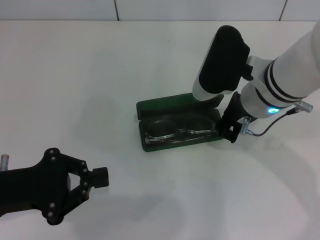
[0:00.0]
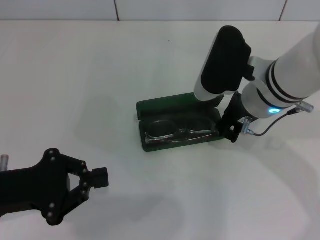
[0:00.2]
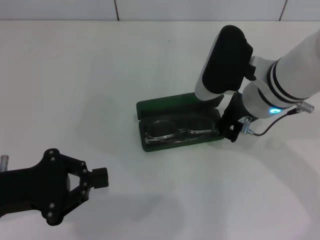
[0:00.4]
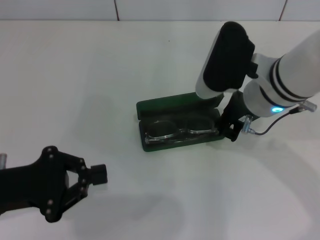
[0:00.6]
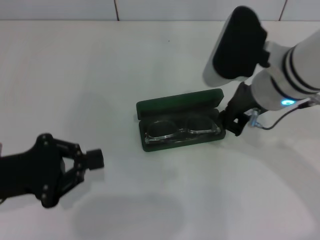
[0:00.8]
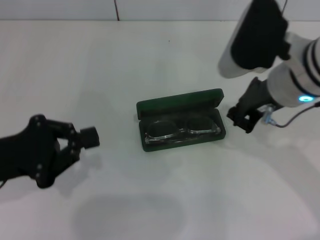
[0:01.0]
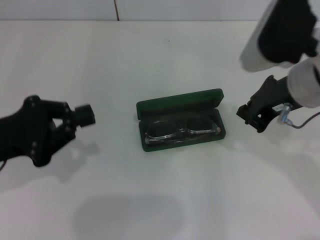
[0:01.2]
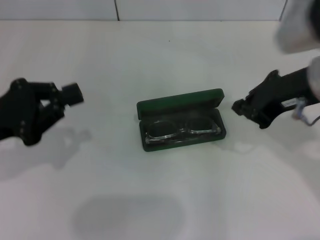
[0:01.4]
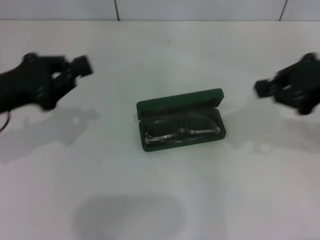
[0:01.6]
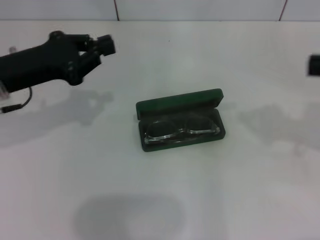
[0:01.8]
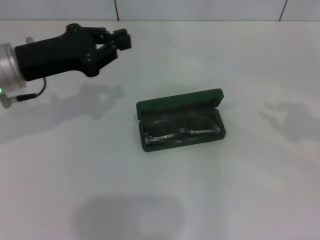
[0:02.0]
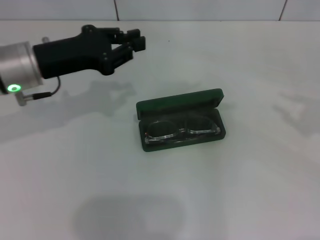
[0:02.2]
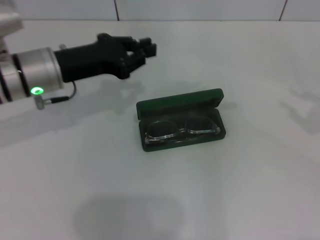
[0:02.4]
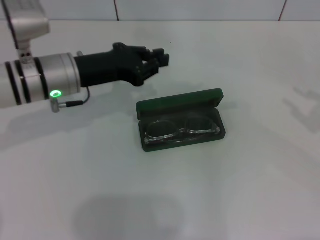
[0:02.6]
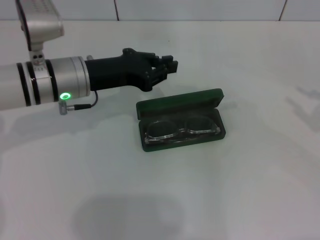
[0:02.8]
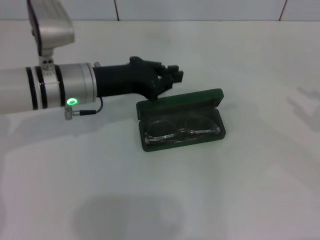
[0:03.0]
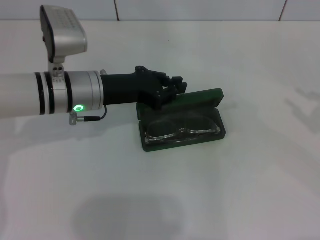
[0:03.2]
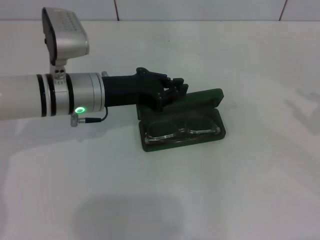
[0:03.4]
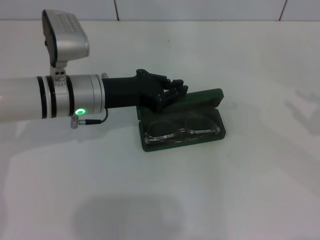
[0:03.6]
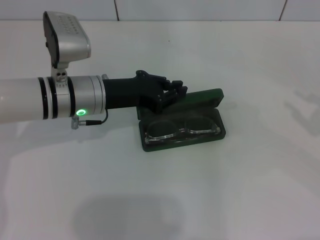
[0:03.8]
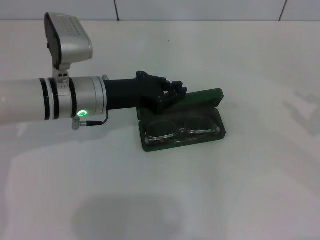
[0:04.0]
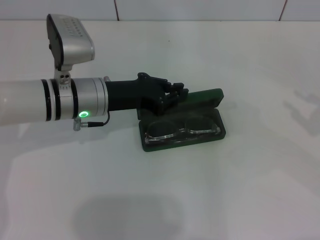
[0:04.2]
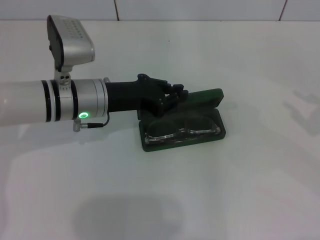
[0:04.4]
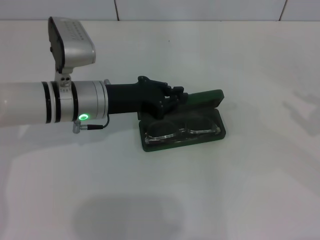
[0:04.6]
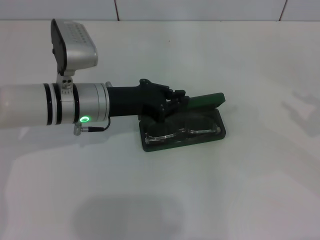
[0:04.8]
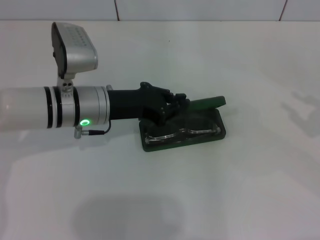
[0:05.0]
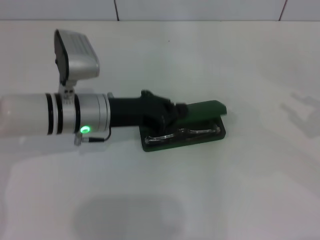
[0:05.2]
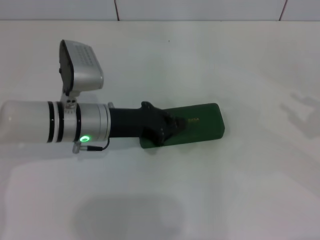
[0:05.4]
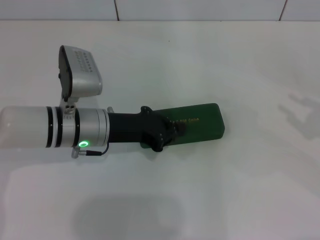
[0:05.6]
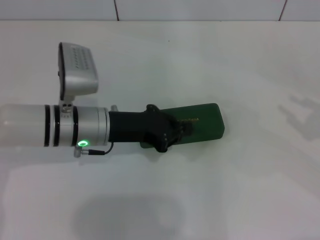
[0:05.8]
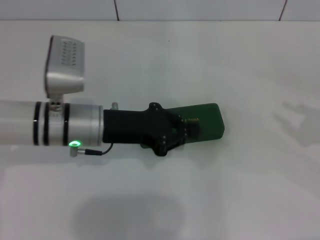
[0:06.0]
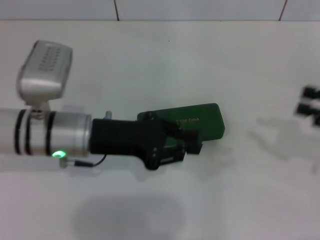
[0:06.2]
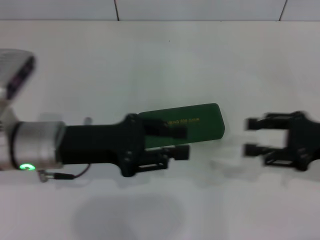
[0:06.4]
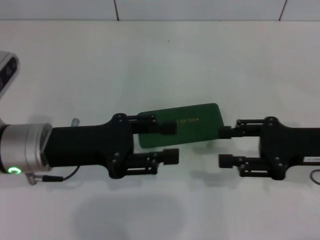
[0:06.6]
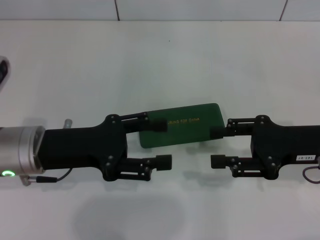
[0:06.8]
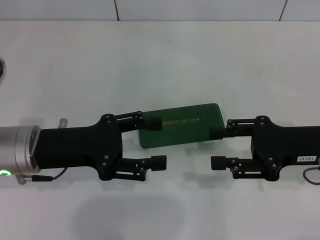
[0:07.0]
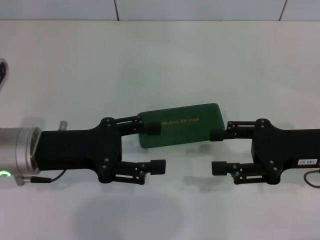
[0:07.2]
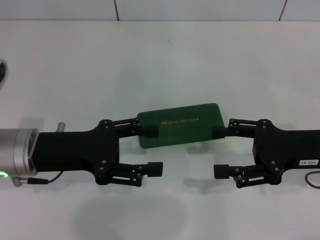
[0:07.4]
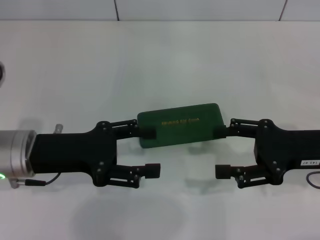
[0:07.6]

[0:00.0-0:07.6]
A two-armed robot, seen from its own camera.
Step, 0.6 to 5.4 s: Close the glasses case with your left hand.
0.0 to 1.6 s: The left gripper travels forward by about 10 cm, while the right gripper shifts about 20 cm to the right, upward and backward.
1.6 to 3.0 s: The right gripper goes some 15 cm to the right and downward, and opens. The left gripper travels to the right and forward by about 15 cm.
3.0 to 6.0 s: The grippers move only a little.
6.0 to 7.6 s: The right gripper travels to the left by about 15 cm, and opens. Meanwhile the left gripper is displaced to the left by approximately 5 cm, and opens.

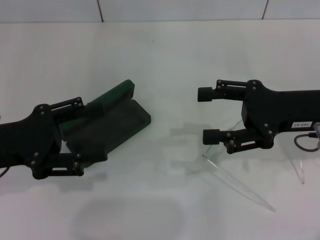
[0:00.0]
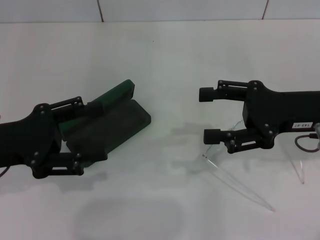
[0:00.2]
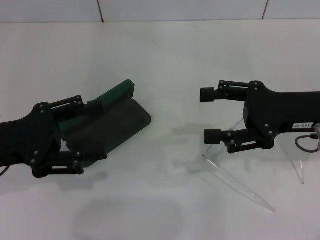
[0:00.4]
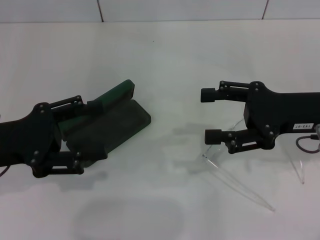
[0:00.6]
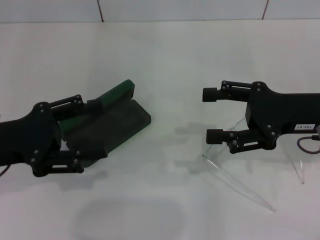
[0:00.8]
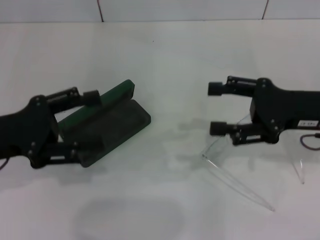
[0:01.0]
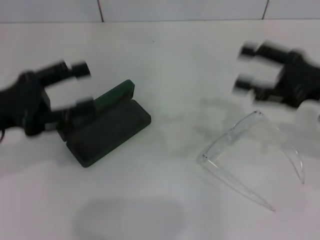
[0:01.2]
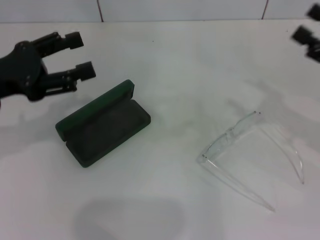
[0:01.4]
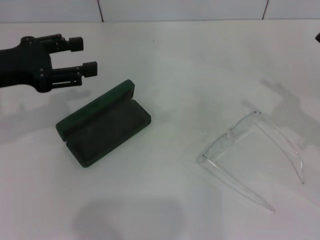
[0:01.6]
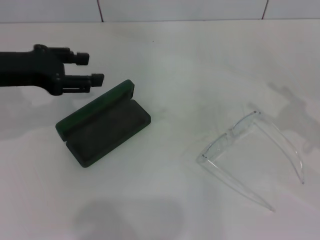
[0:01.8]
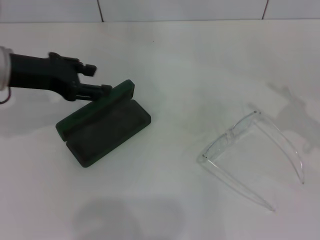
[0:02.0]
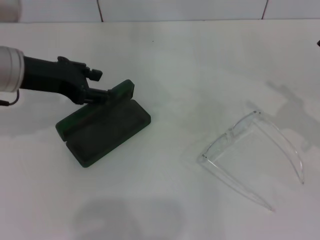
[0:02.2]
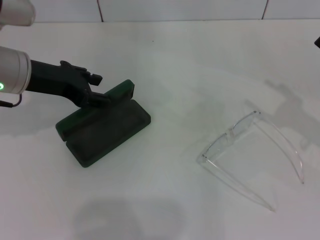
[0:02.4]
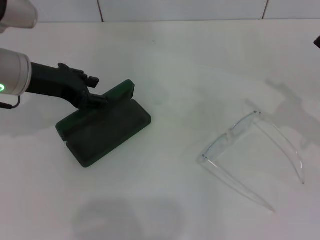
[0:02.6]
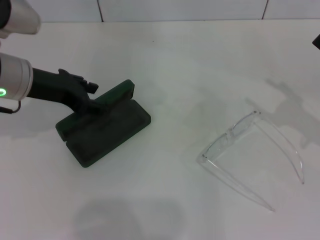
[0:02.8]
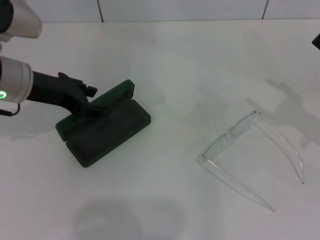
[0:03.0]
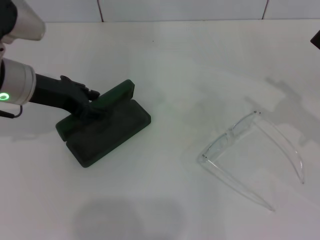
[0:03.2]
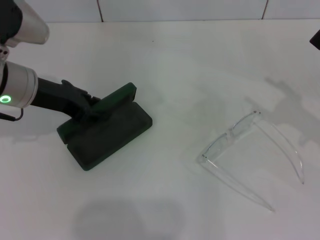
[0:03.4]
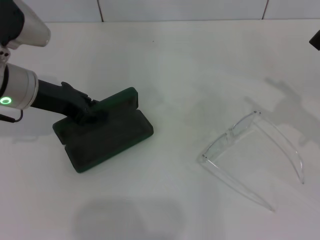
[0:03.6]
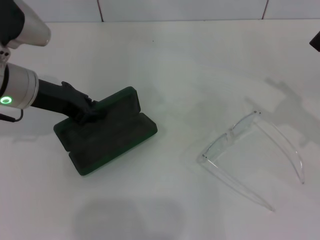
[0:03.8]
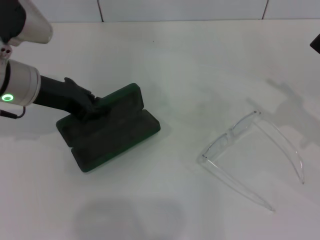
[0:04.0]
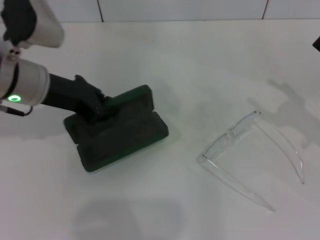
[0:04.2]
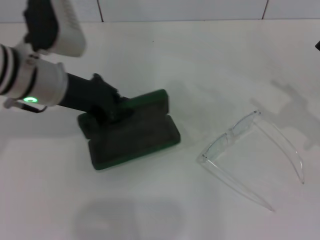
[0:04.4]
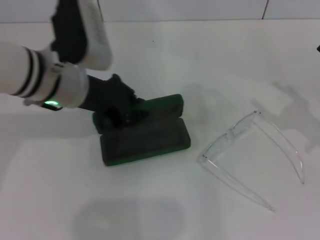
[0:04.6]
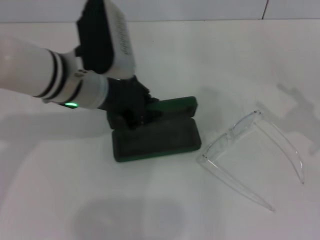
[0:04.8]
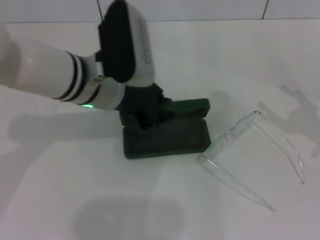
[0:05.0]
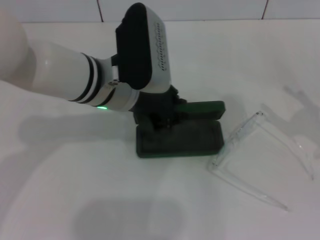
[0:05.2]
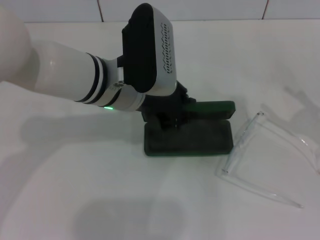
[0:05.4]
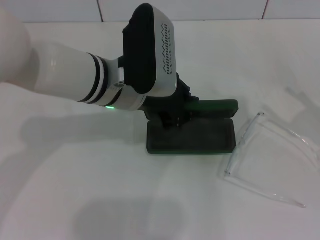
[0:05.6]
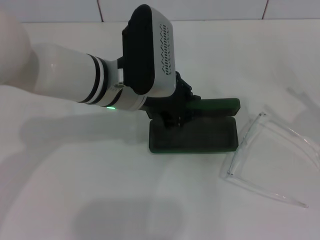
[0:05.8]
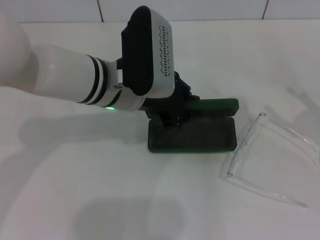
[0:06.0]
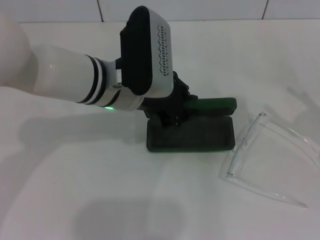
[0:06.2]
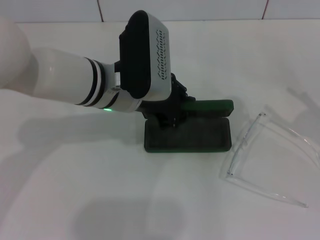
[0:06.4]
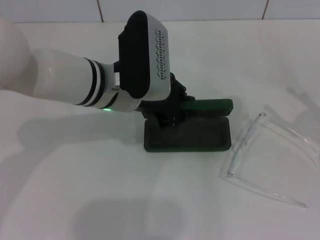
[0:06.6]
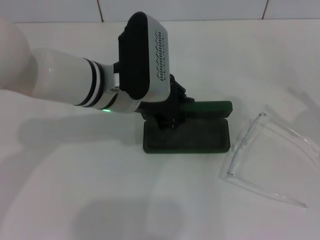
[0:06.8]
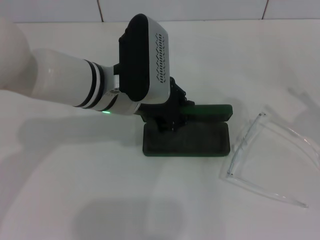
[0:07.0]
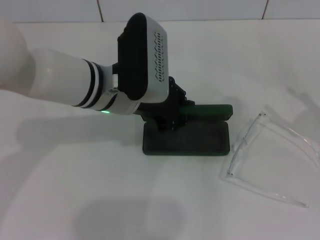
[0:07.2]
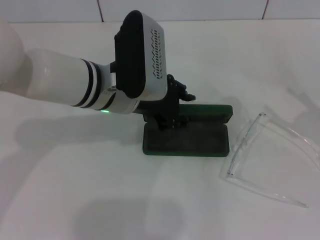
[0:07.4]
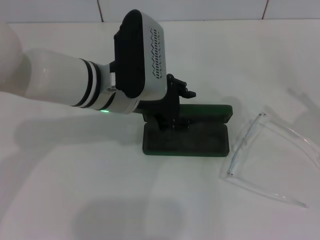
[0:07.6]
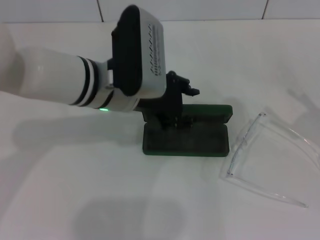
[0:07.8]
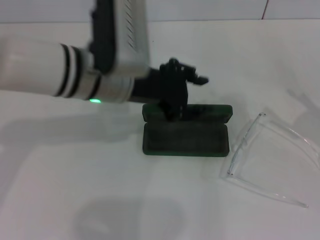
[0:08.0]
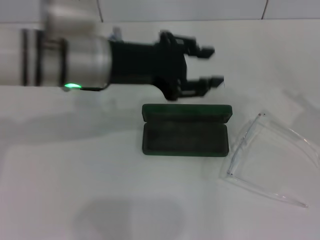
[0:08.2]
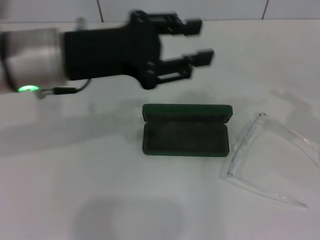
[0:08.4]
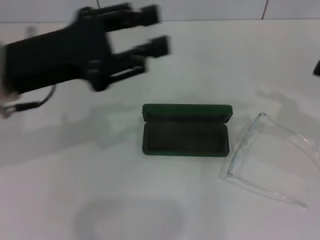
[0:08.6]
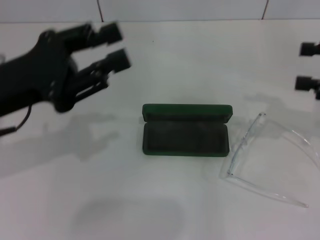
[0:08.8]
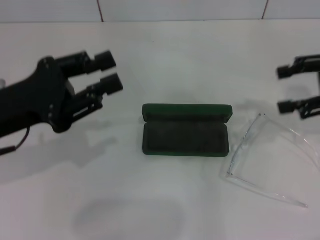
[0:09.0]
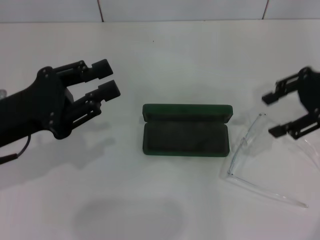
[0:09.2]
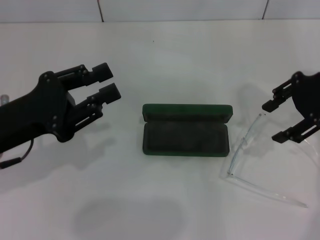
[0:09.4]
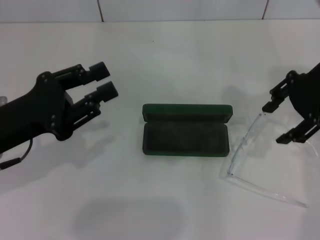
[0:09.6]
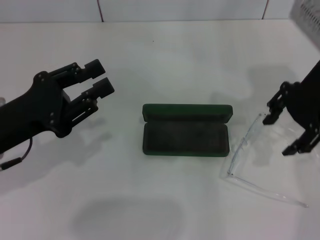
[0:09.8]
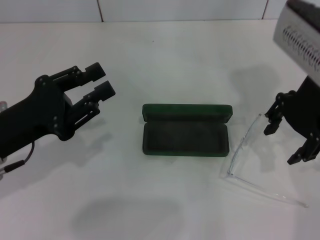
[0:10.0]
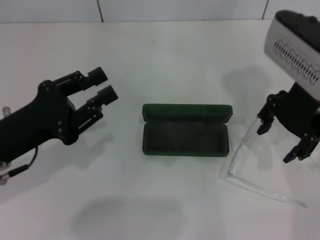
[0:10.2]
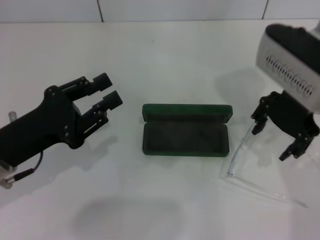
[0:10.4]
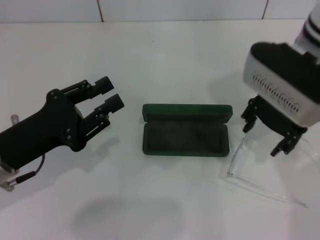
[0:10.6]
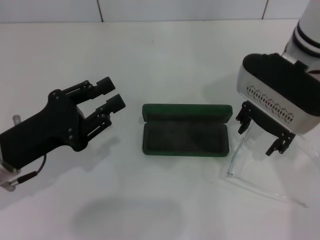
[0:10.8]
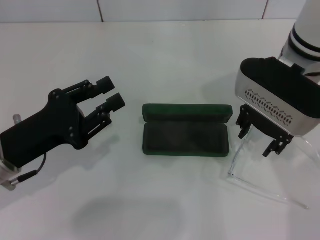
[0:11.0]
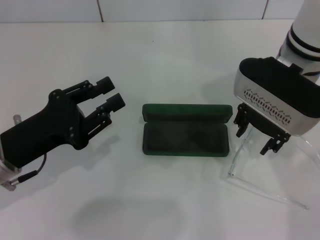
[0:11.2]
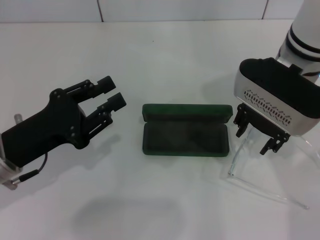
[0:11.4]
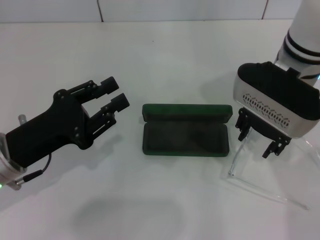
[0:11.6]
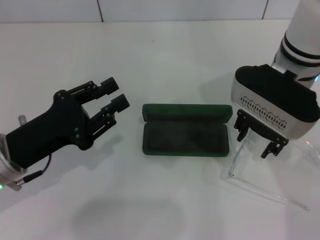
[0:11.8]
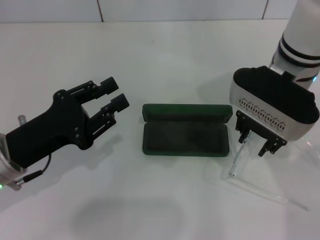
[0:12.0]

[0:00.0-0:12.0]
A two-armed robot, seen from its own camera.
Step, 0.0 to 3.4 s: Grab the glasses case with your left hand.
Step, 3.6 to 7.2 s: Place the glasses case in the center of the table with your left hand.
0.0 to 1.6 s: The right gripper goes about 10 cm to the right. The left gripper heads forward, covering about 5 cm.
1.6 to 3.0 s: The left gripper heads to the right, covering some 5 cm.
3.0 to 4.4 s: The left gripper shifts by approximately 5 cm, and closes its fingers.
4.4 to 6.0 s: The left gripper goes approximately 10 cm to the right.
6.0 to 7.6 s: Neither gripper changes place.
7.6 to 9.0 s: The right gripper moves upward and forward, roughly 15 cm; the left gripper goes about 20 cm to the left and backward.
9.0 to 10.4 s: The right gripper moves to the left, about 15 cm. The left gripper moves downward, some 5 cm.
10.4 to 12.0 s: The right gripper shifts by some 5 cm.

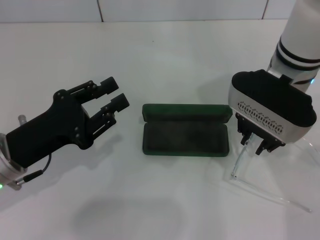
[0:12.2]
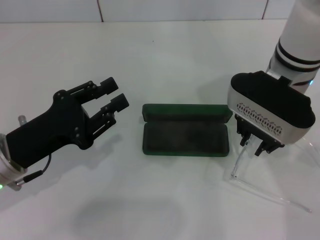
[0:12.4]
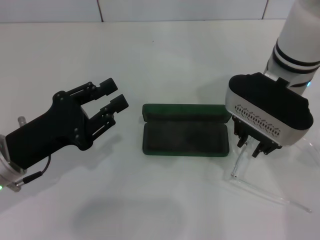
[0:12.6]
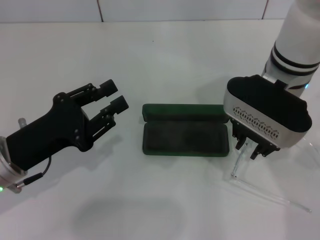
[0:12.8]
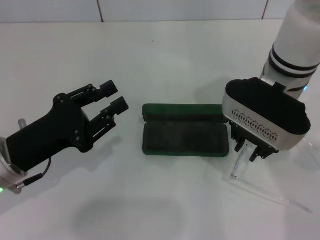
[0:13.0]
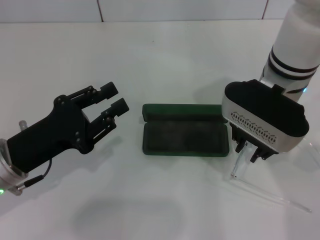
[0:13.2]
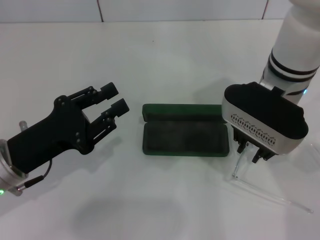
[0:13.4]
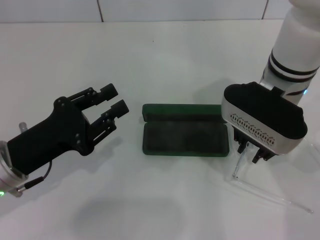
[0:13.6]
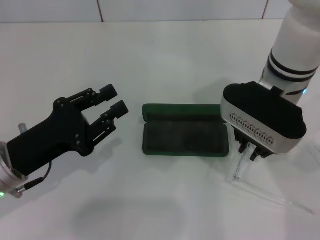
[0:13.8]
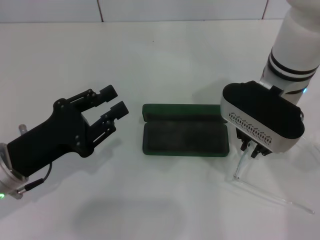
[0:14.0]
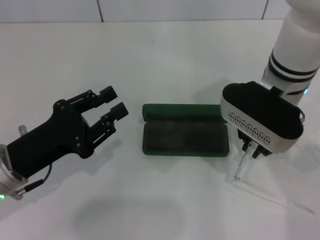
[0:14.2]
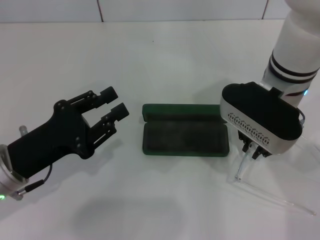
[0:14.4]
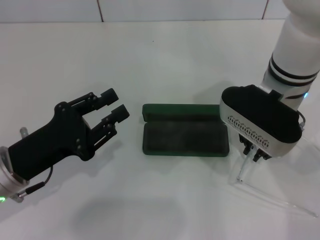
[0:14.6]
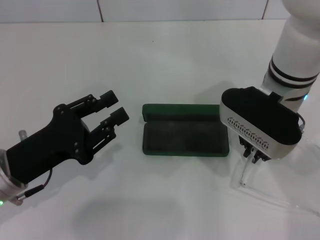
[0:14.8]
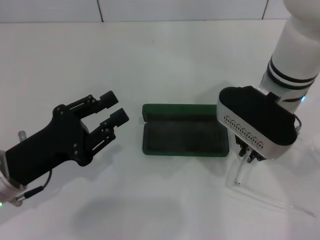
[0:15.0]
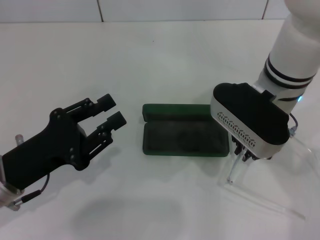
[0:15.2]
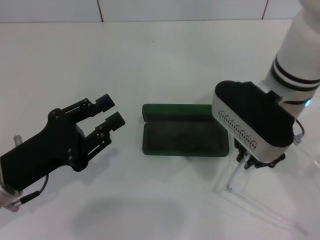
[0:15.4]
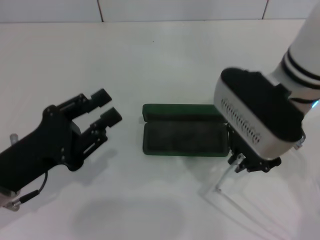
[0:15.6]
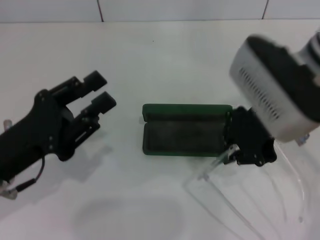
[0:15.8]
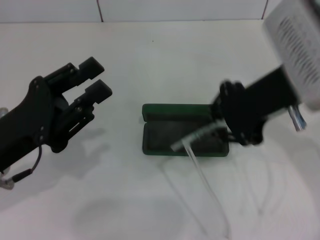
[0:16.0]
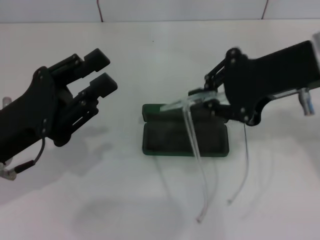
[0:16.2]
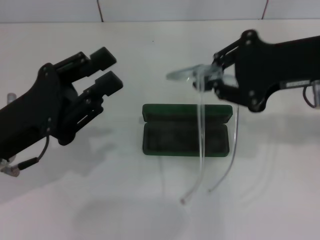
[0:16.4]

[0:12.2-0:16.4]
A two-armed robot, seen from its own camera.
Step, 12.2 to 14.4 s: Grab the eyeglass frame with your right hand.
12.2 to 15.0 s: The grippers make only small movements.
15.0 to 16.4 s: The right gripper heads upward, to the right and backward, covering roughly 15 cm; the left gripper moves some 5 cm.
